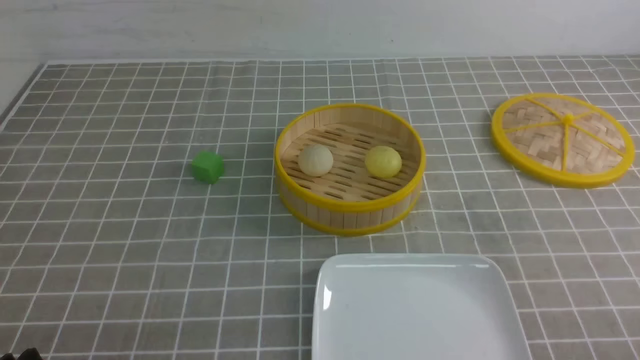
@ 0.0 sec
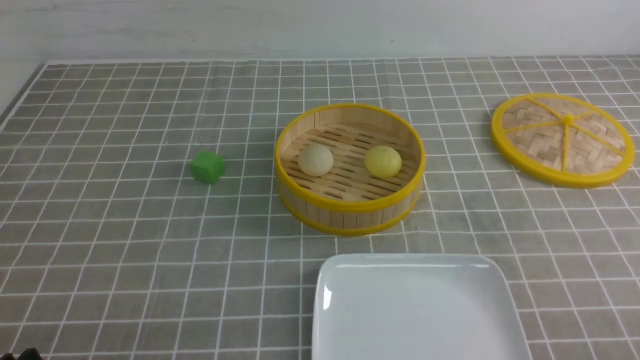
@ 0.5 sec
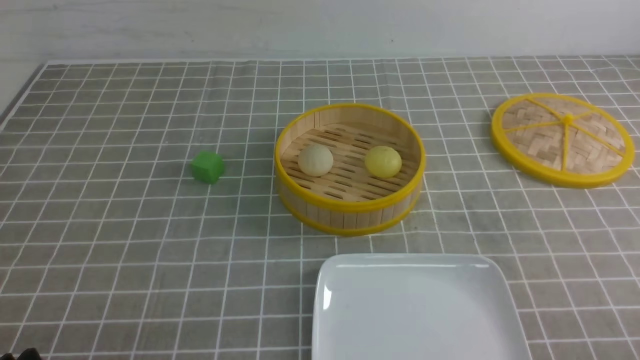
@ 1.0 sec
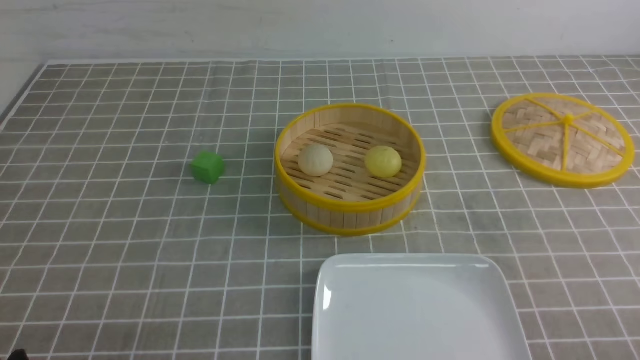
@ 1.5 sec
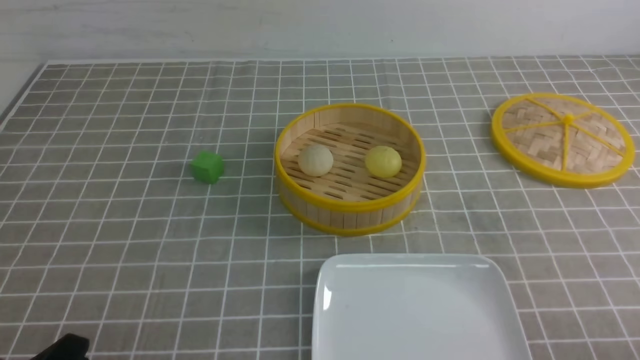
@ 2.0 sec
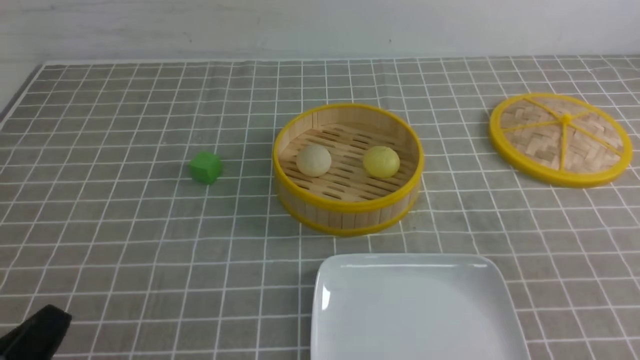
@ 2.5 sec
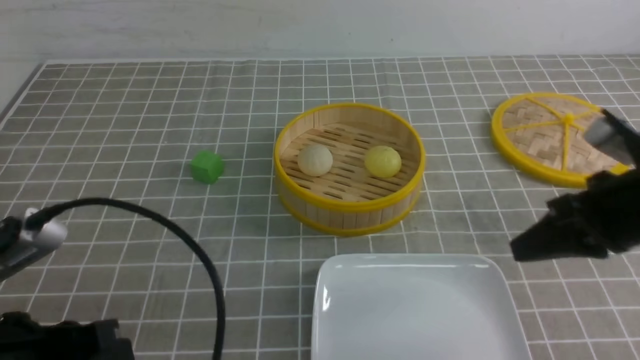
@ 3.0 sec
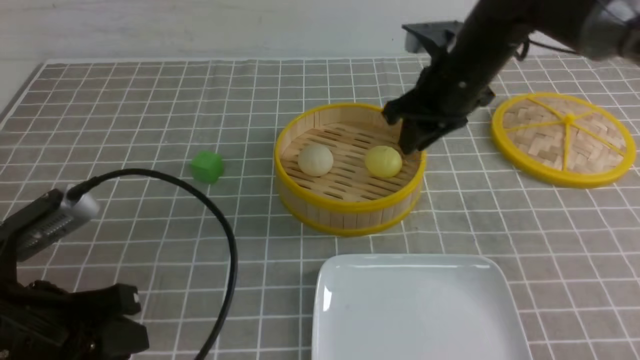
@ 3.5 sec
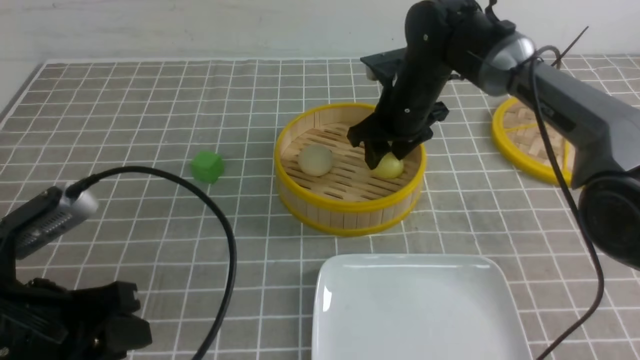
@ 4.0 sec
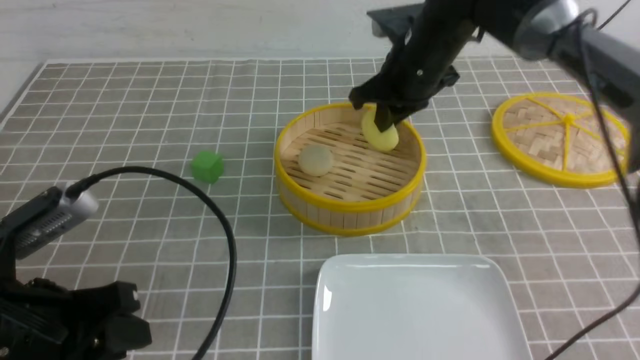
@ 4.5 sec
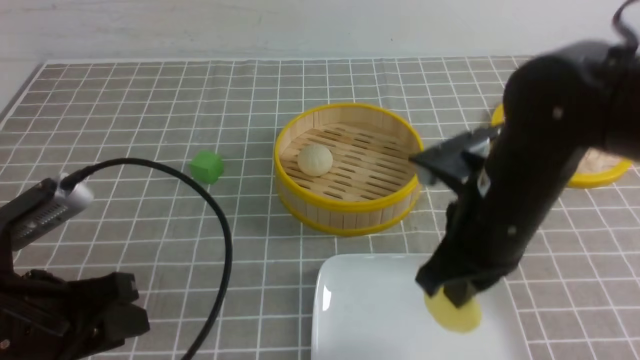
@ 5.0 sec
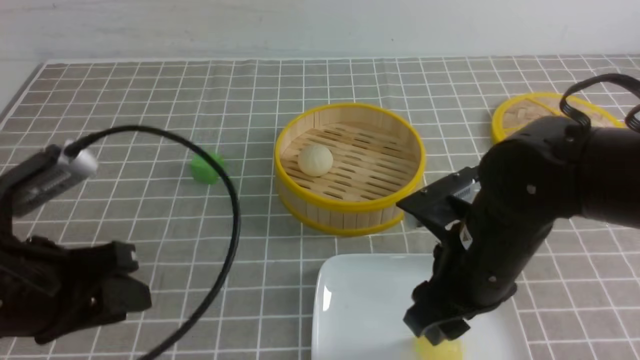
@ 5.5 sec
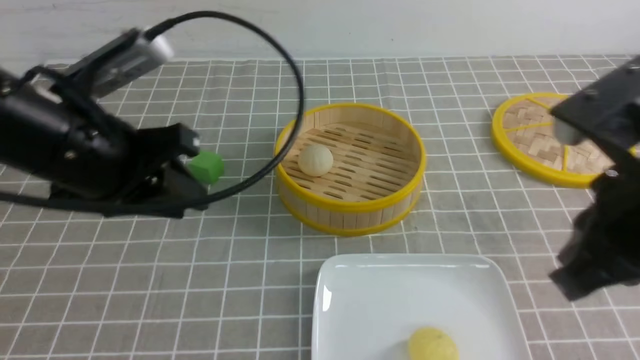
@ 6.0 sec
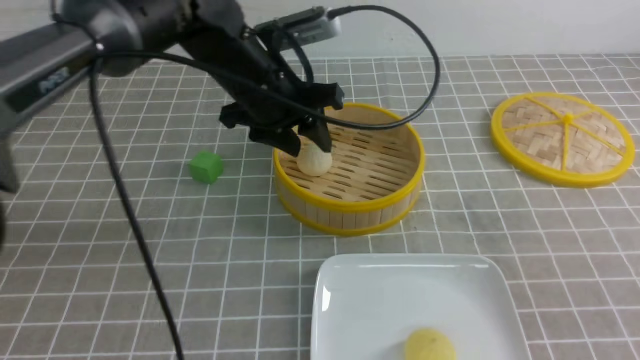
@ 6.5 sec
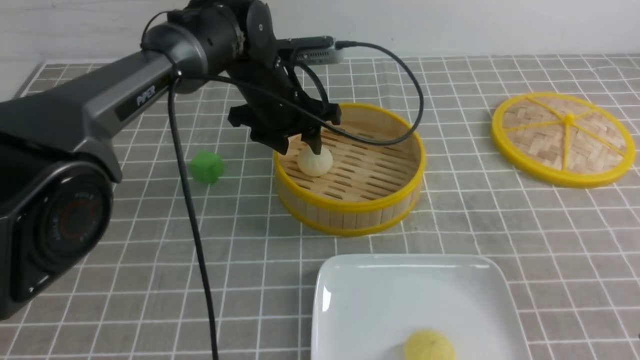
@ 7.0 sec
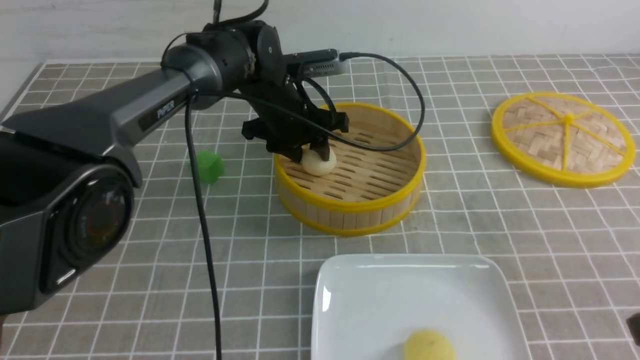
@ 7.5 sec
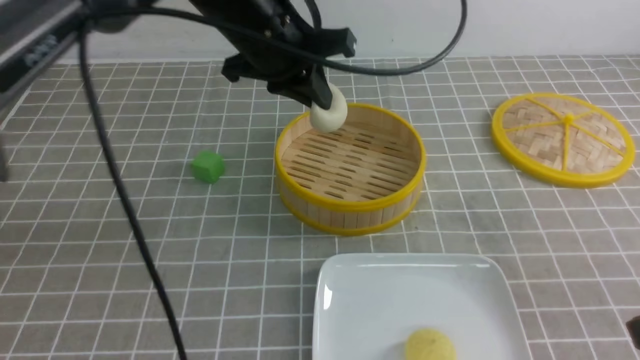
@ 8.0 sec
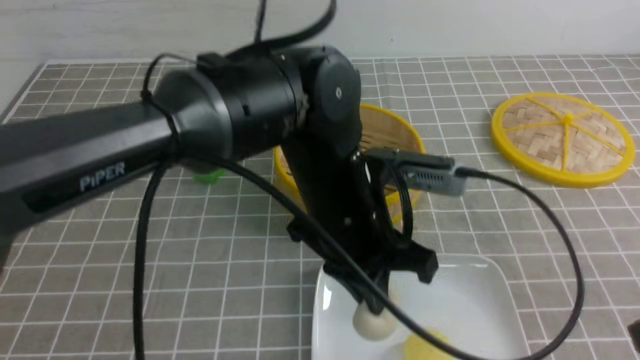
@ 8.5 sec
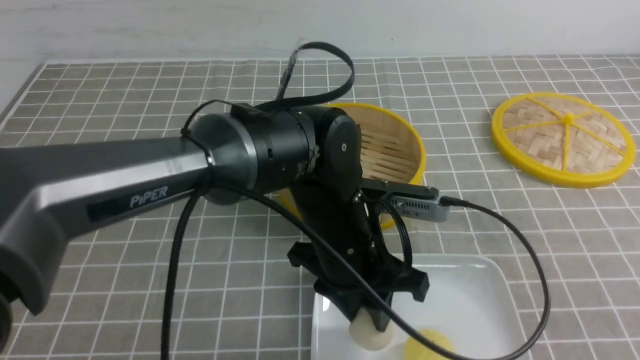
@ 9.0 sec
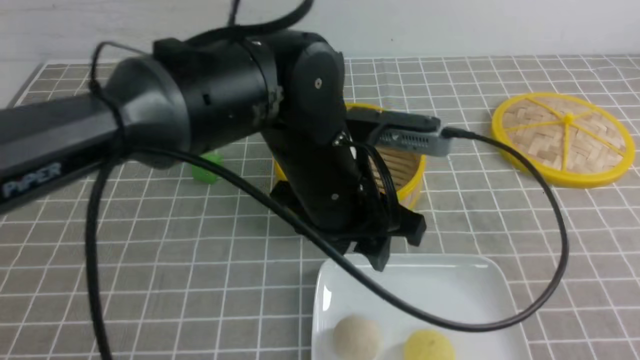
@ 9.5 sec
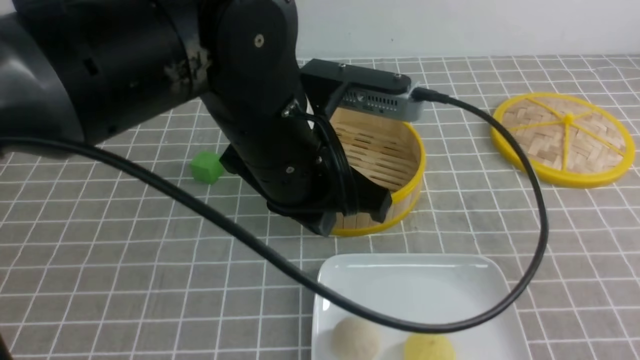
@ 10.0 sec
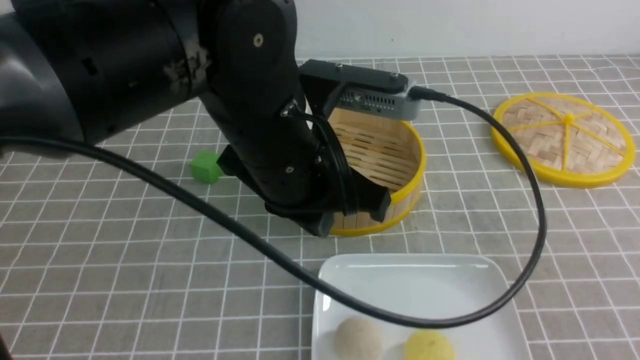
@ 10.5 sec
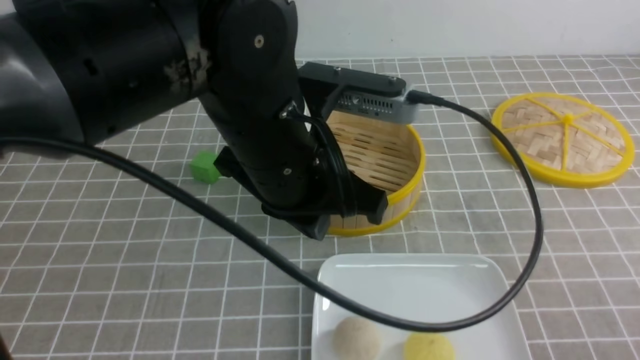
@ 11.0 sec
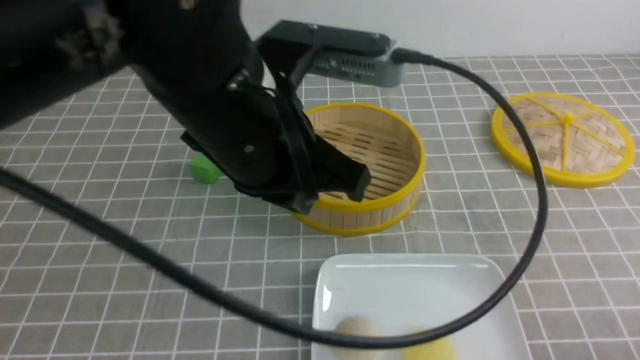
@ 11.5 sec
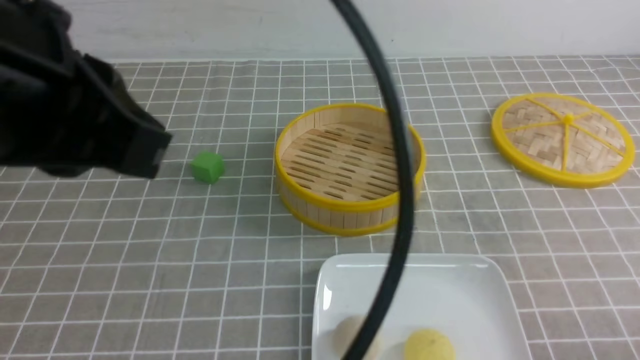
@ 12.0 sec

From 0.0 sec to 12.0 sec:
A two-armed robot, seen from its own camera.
Step, from 0.0 sec to 4.0 sec: use the right arm to grab the steamed stuffed bun that is closest to it.
Step, from 4.5 sec to 5.5 sec: use the right arm to put the steamed stuffed bun into the plate.
Step, from 6.0 sec to 7.5 sec: use the left arm to grab the steamed stuffed bun that is closest to it.
Step, from 8.0 sec to 9.0 sec: use the left arm to put the steamed stuffed bun into the plate.
From 2.0 sec to 4.0 sec: The left gripper travels forward and upward by some 10 cm, and closes and opens again, while the right gripper goes approximately 50 cm forward and to the left, and closes, then opens again.
From 4.0 sec to 6.0 sec: The right gripper travels backward by about 30 cm, and closes its fingers. Meanwhile the left gripper is displaced forward and upward by approximately 15 cm.
From 6.0 sec to 8.0 sec: The right gripper is displaced backward and to the right by roughly 10 cm. Meanwhile the left gripper goes about 20 cm to the right and forward, and closes up.
From 8.0 sec to 10.0 sec: The right gripper shifts by approximately 5 cm, while the left gripper is displaced backward by about 15 cm, and opens, then closes again.
From 10.0 sec to 12.0 sec: The right gripper shifts about 10 cm downward. Meanwhile the left gripper moves to the left, upward and backward, about 20 cm.

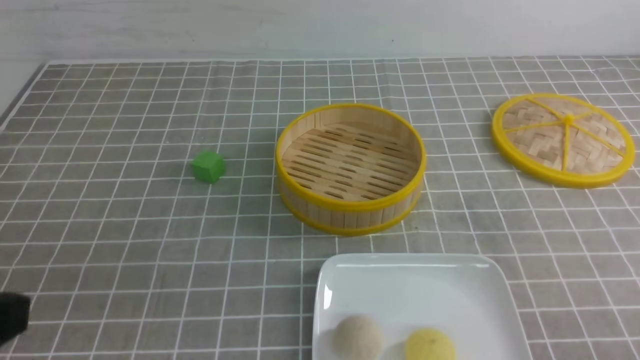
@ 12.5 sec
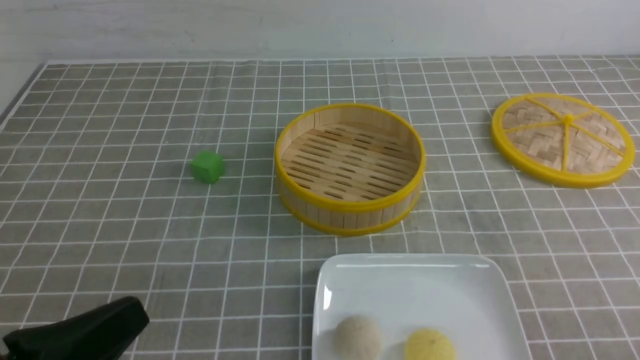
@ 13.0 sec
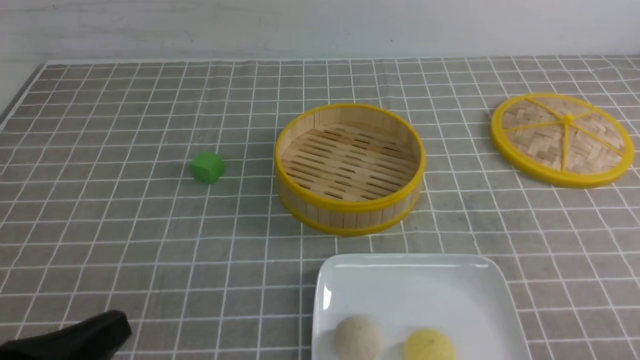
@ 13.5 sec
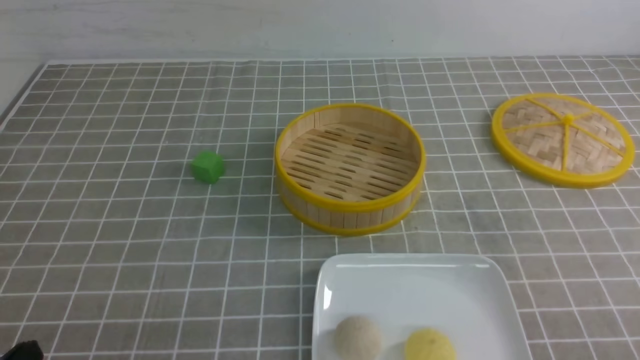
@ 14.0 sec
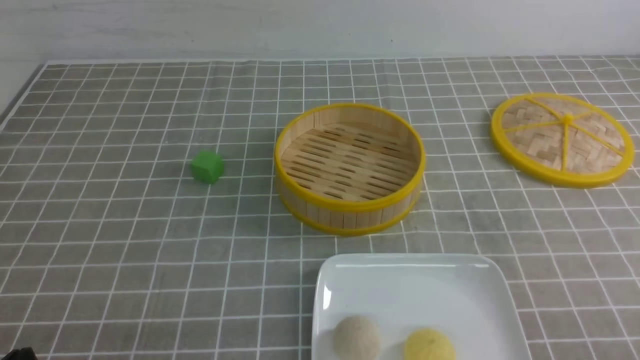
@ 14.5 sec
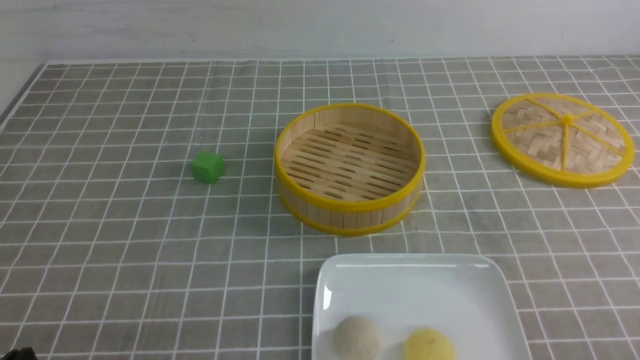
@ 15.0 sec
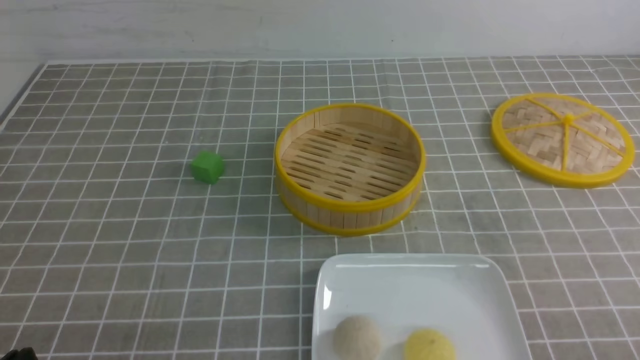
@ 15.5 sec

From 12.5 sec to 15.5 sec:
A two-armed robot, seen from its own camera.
From 12.5 sec to 14.0 sec: The left gripper shifts about 15 cm downward.
From 14.0 sec to 15.5 sec: Neither gripper changes place.
